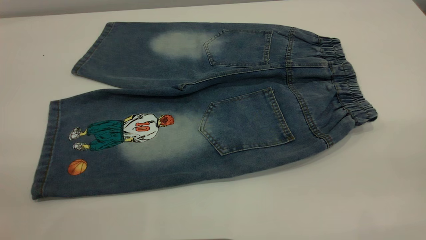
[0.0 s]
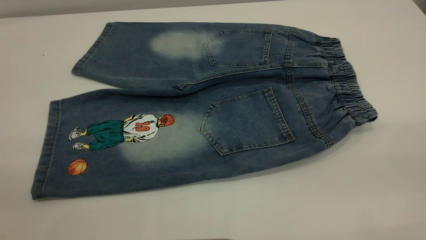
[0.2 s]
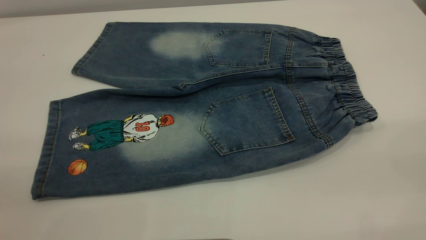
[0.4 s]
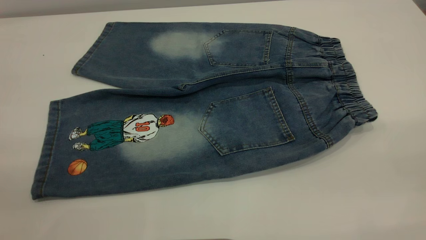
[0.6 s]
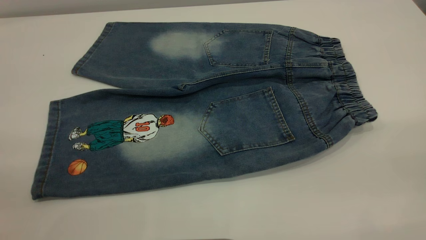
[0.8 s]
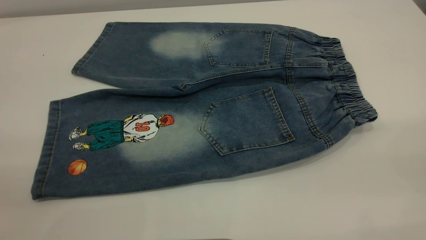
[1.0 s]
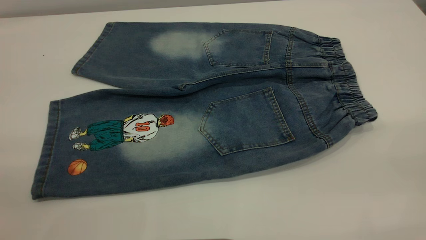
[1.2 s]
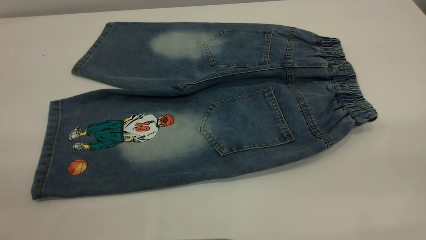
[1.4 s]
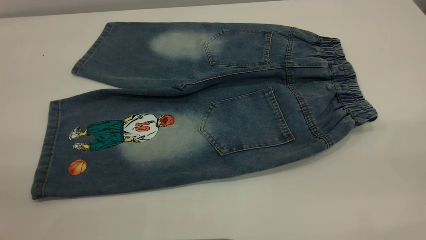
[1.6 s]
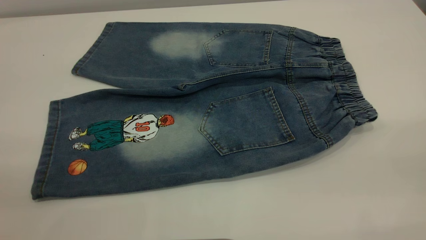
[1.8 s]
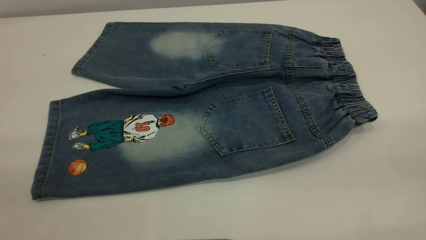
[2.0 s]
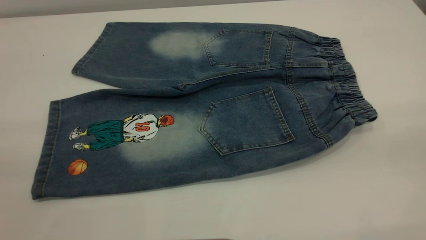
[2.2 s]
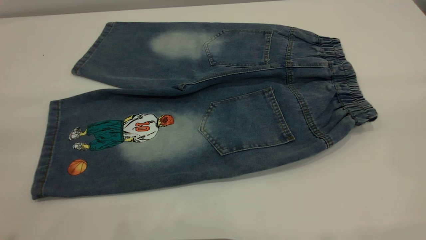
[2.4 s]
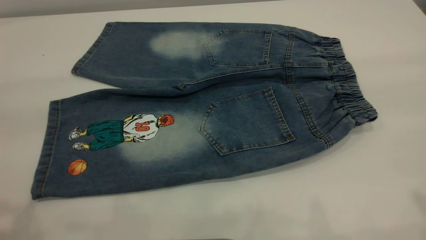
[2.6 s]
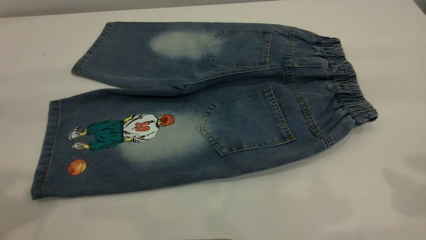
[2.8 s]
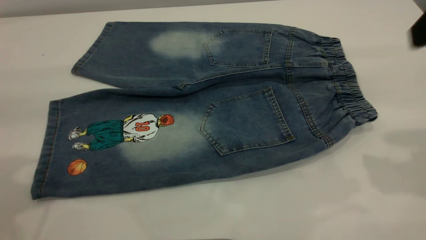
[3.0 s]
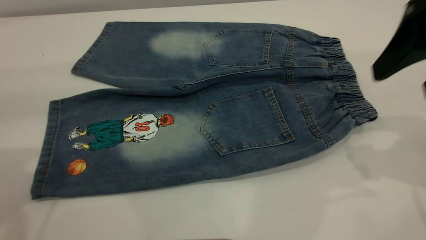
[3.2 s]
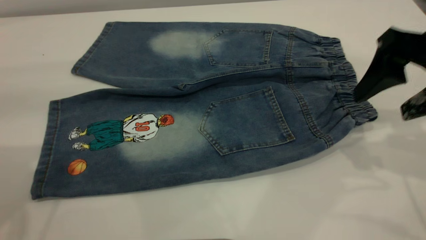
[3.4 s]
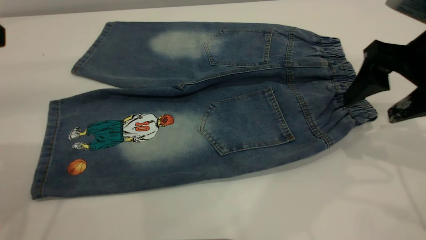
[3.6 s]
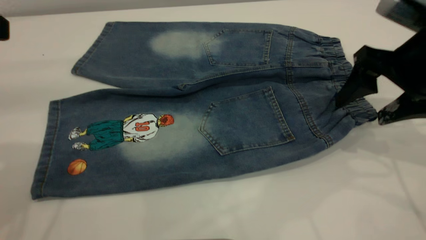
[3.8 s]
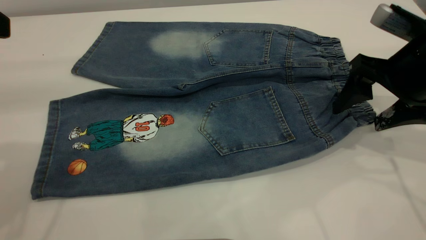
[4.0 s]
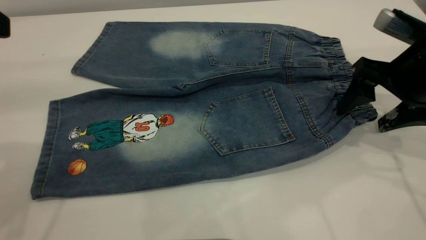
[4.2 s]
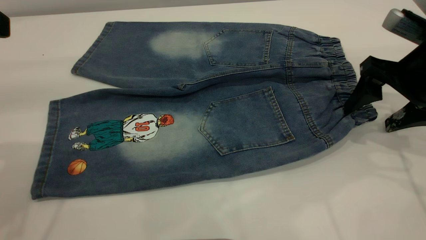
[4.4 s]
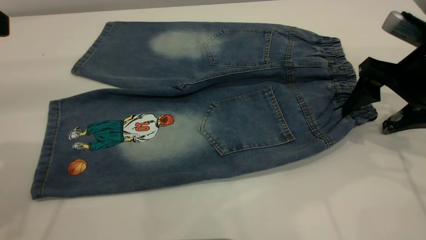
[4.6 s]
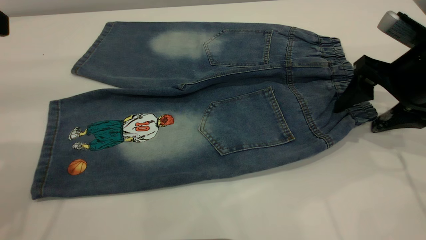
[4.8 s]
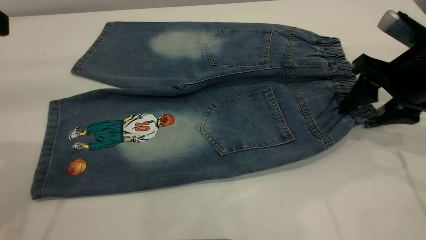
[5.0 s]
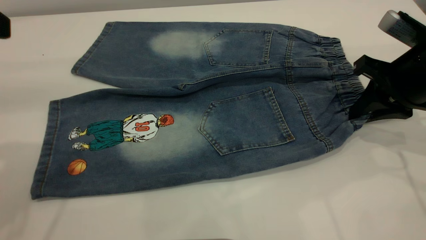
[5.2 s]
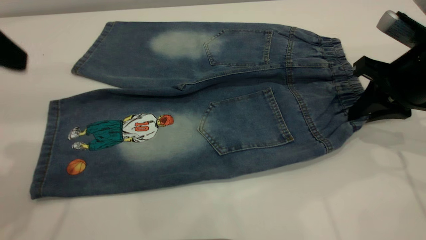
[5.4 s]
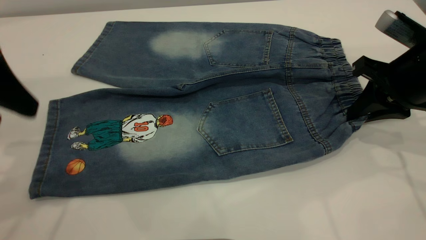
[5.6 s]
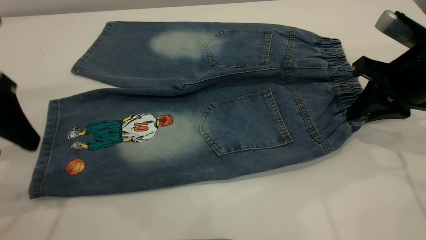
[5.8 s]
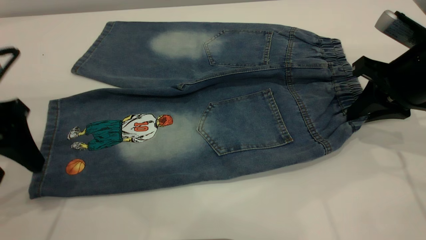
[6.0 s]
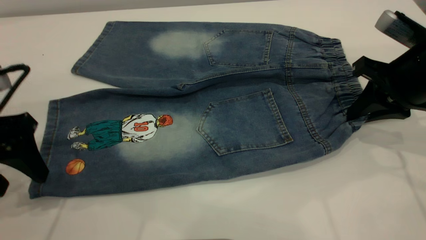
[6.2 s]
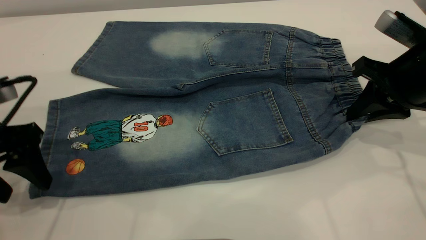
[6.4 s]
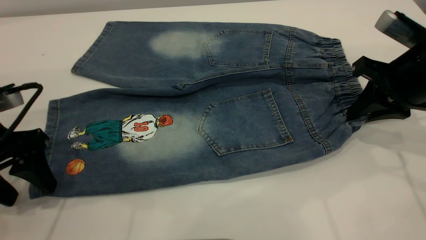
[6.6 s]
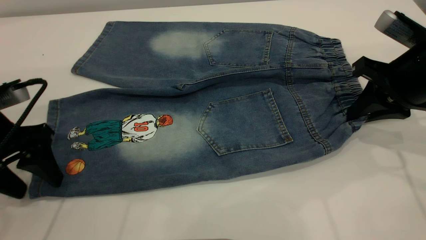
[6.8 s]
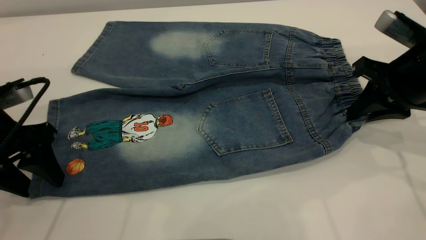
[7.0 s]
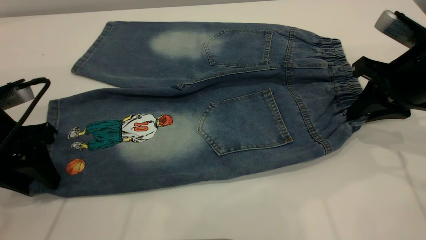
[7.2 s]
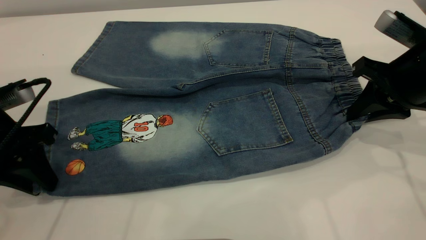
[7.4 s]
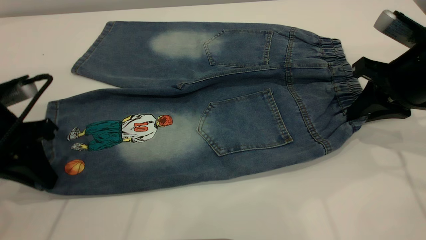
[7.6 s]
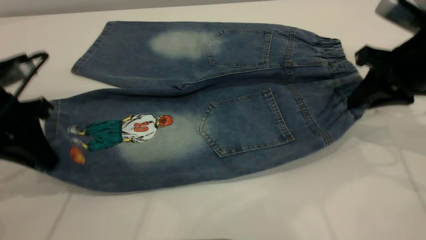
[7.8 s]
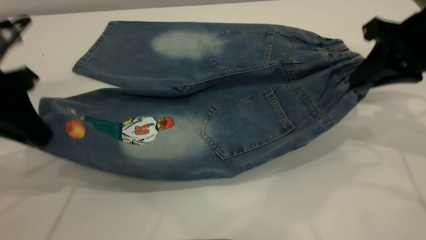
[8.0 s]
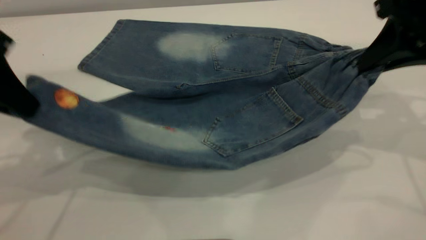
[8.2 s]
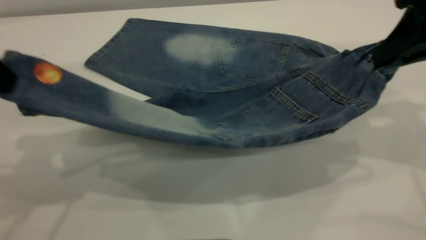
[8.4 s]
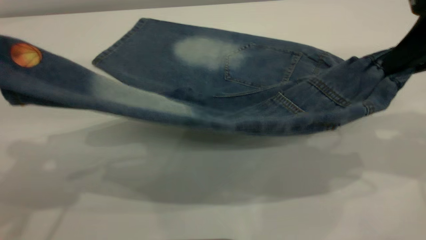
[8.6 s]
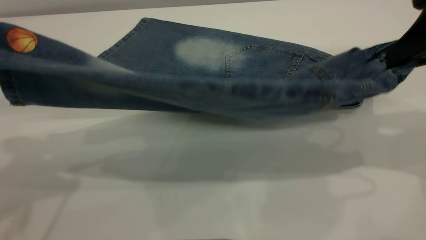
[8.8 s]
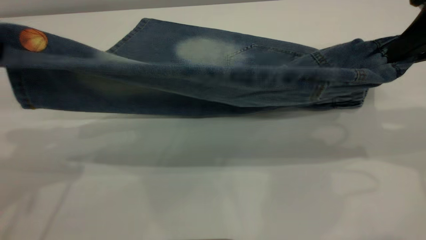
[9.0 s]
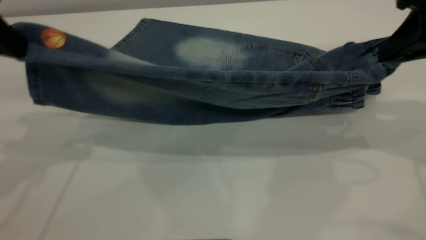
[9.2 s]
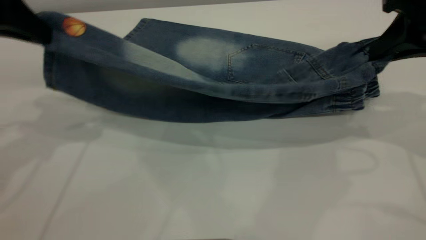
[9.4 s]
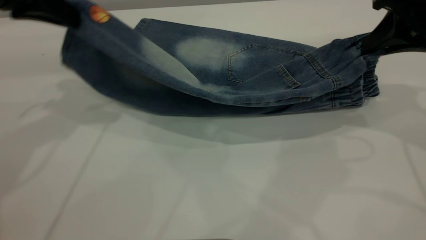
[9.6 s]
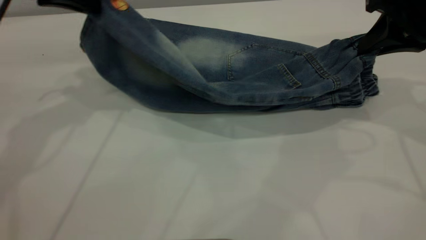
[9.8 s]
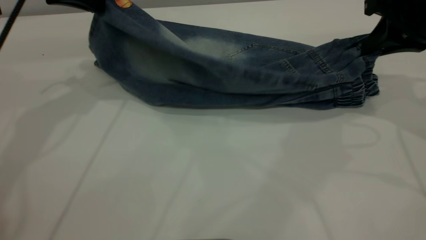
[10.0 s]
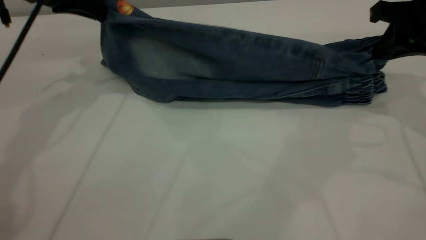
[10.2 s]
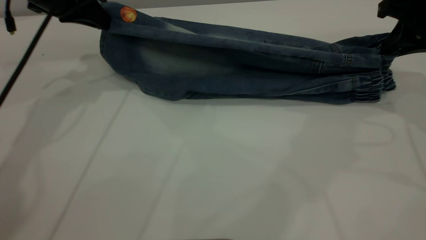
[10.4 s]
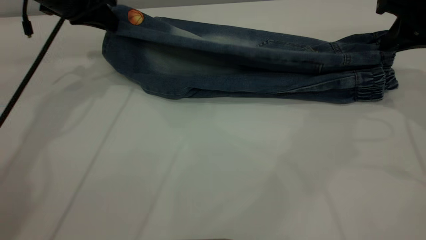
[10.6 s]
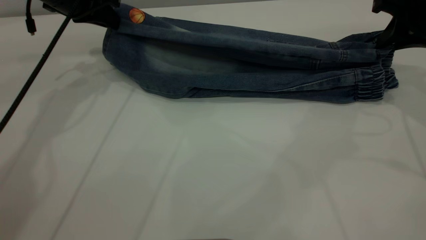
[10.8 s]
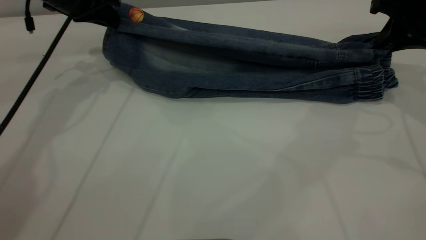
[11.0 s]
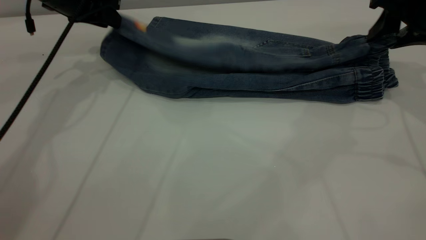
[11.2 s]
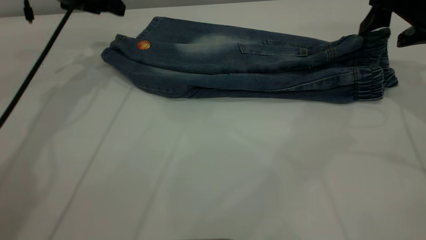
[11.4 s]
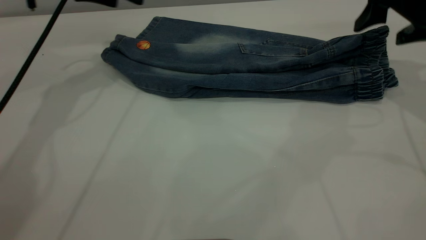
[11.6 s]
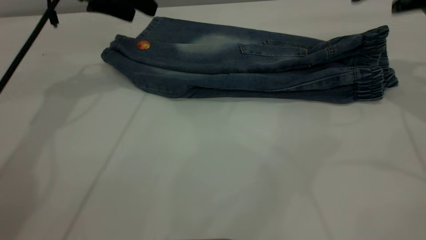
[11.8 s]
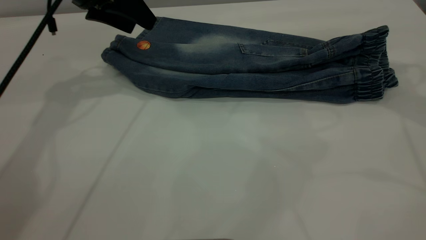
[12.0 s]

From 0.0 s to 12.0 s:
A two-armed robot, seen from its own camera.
Step, from 0.0 s to 11.6 s: Fold the bottom of the pants upward.
From 0.0 s to 1.6 s: The two grippers keep their place.
From 3.0 s to 4.4 s: The right gripper travels downward and forward by some 15 cm.
From 4.4 s to 6.0 s: The right gripper closes up. Meanwhile the left gripper is displaced downward by approximately 15 cm.
From 6.0 s to 7.6 s: The left gripper closes.
From 7.6 s to 9.0 s: Both grippers travel together upward, roughly 15 cm.
From 9.0 s to 10.4 s: The right gripper shifts some 10 cm forward and downward, while the left gripper travels forward and downward by about 20 cm.
From 10.4 s to 12.0 s: The right gripper is displaced upward by approximately 10 cm, and opens up; the left gripper opens its fingers.

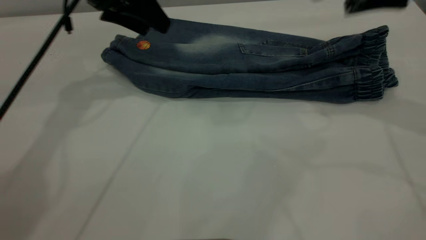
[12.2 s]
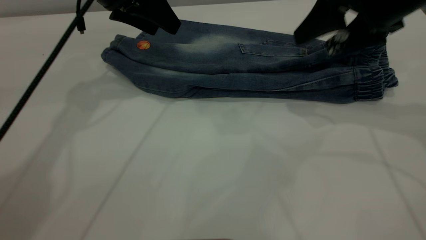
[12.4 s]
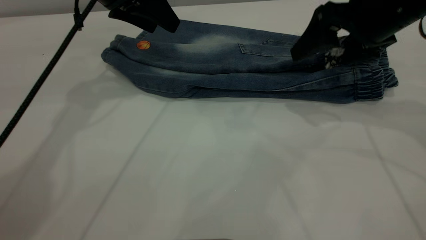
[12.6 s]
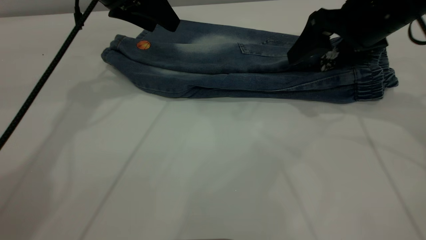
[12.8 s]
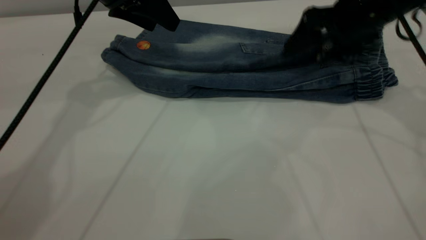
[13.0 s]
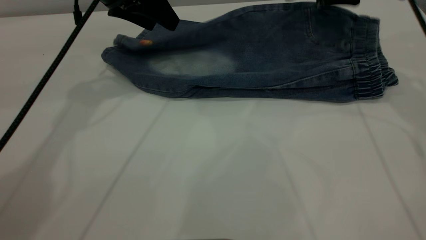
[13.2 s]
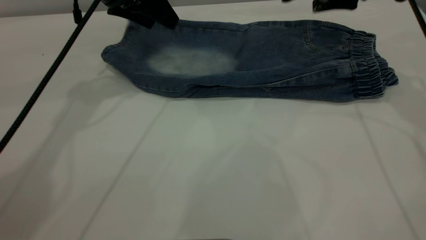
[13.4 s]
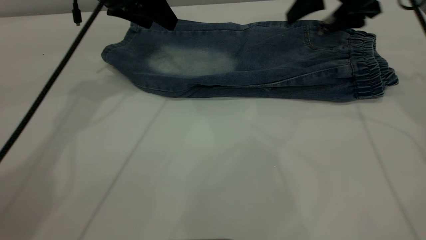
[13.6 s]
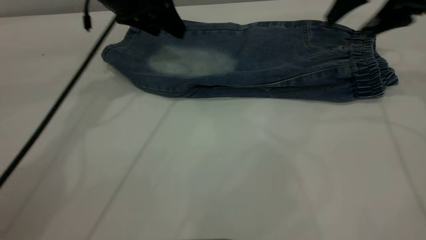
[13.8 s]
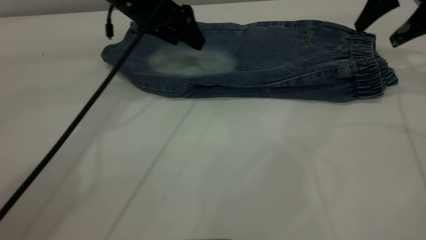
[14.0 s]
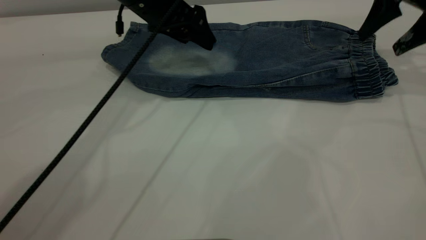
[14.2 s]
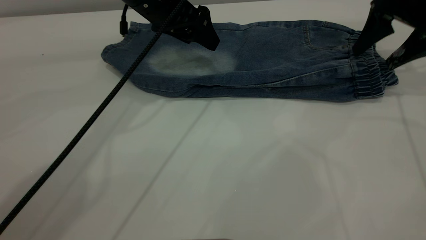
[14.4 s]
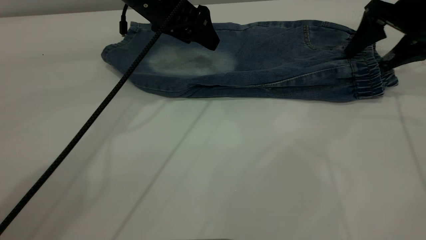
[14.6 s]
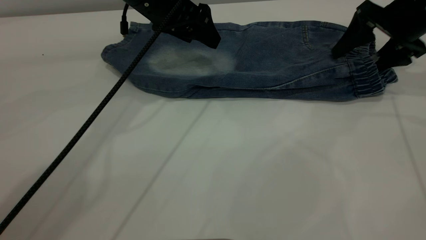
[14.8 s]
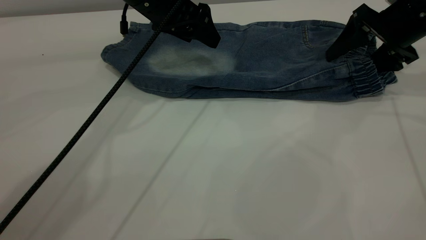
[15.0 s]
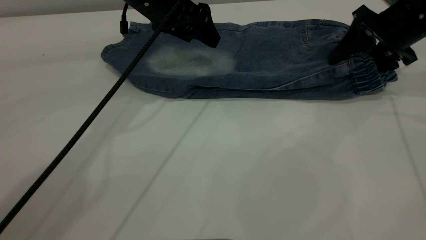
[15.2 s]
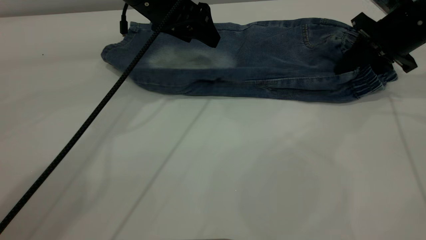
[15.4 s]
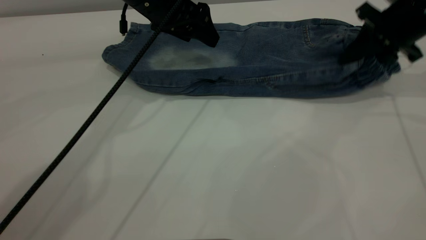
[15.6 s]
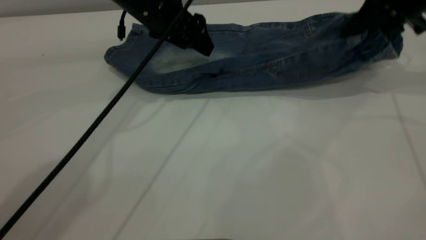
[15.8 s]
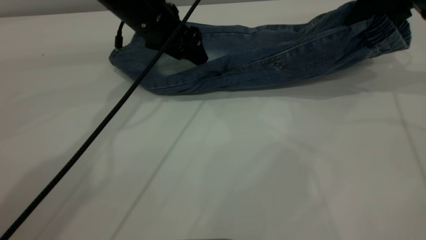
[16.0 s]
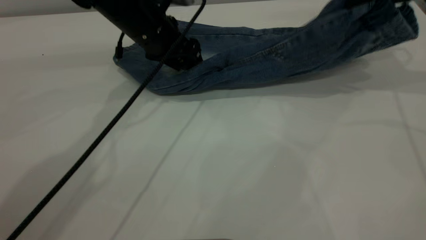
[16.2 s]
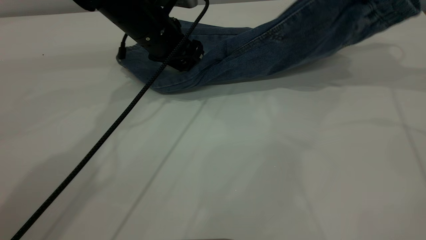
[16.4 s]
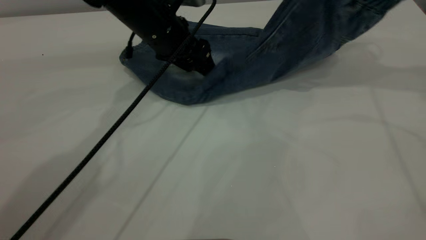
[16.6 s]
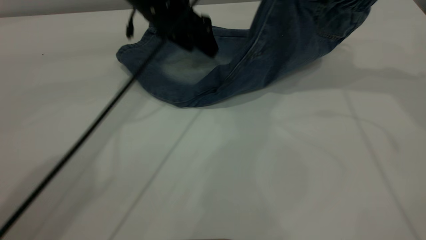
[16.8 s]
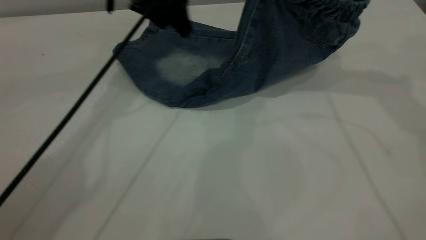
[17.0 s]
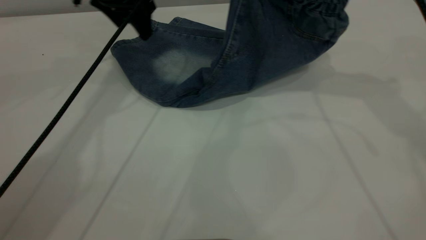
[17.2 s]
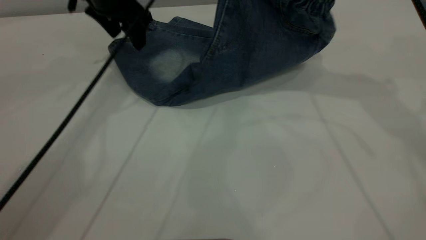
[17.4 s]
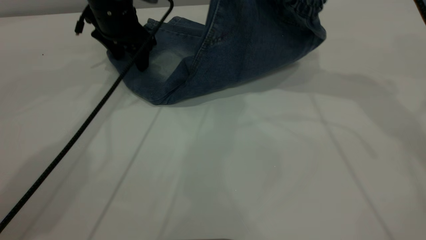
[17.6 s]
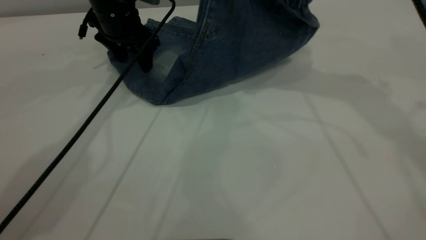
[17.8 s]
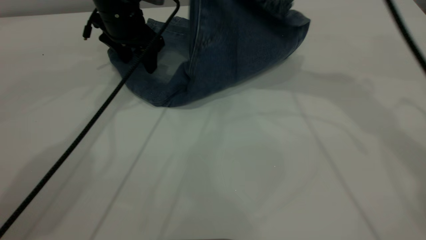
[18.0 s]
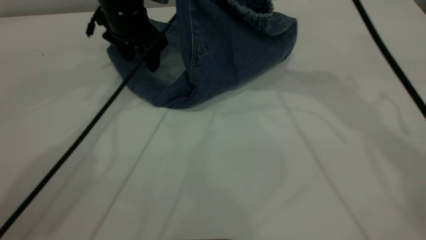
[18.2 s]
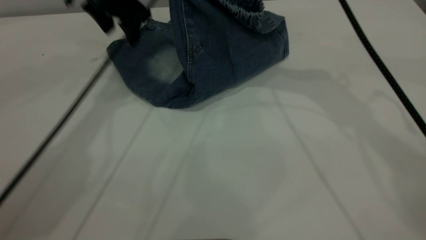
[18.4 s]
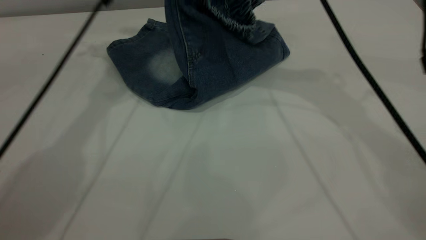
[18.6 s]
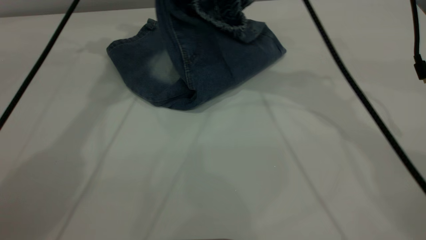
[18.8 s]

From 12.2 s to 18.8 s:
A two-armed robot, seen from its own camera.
From 12.2 s to 13.8 s: The right gripper heads forward, covering approximately 5 cm.
From 13.8 s to 15.4 s: The right gripper moves downward, approximately 10 cm, and closes its fingers.
From 15.4 s to 17.2 s: The right gripper travels upward and to the left by some 20 cm. The left gripper goes approximately 5 cm to the left, and reaches about 5 cm downward, then returns.
From 17.2 s to 18.8 s: The left gripper moves upward, approximately 10 cm, while the right gripper goes approximately 10 cm to the left and downward.
